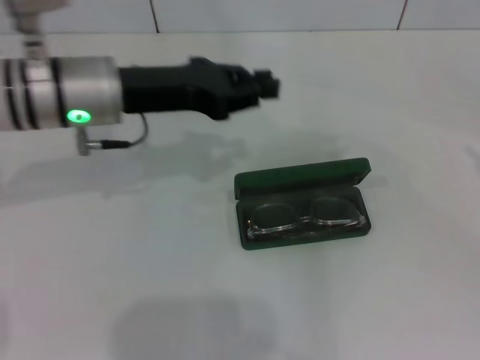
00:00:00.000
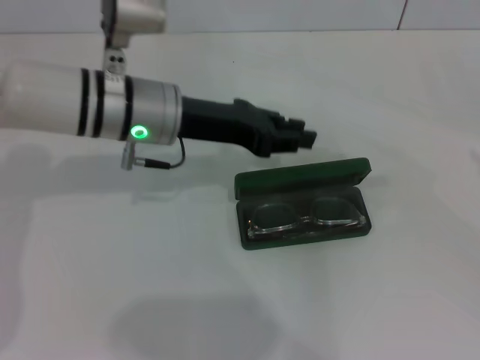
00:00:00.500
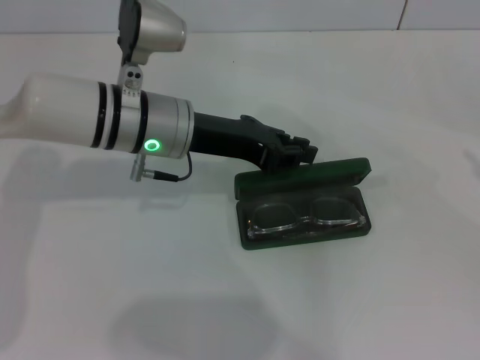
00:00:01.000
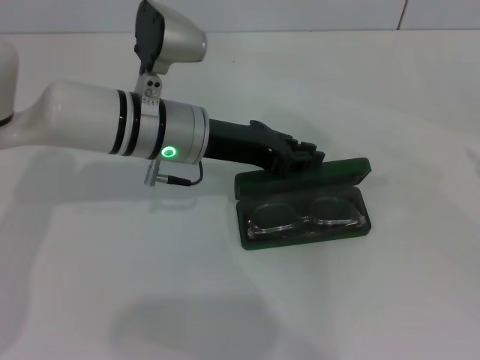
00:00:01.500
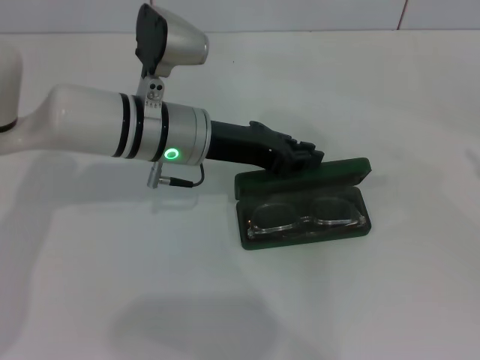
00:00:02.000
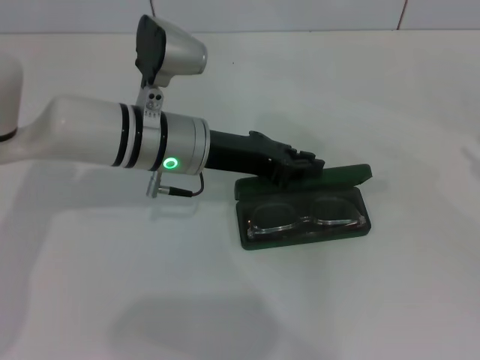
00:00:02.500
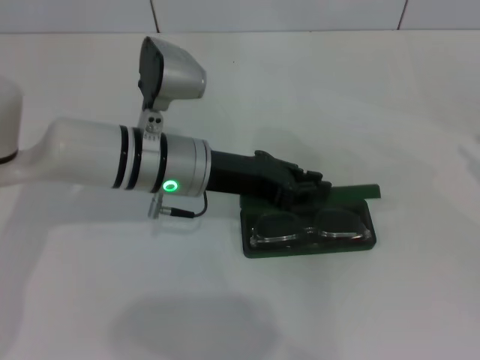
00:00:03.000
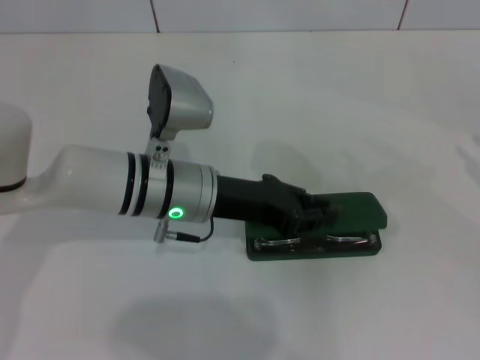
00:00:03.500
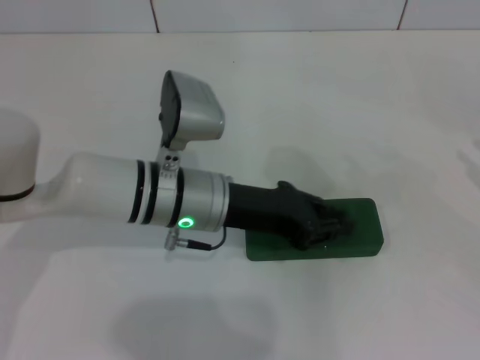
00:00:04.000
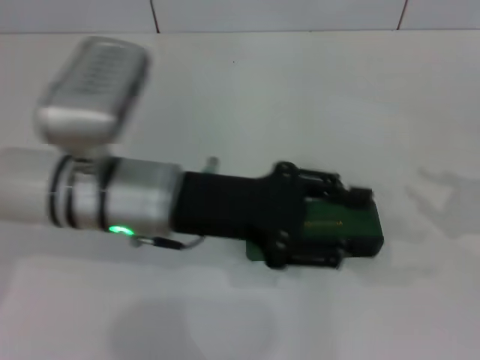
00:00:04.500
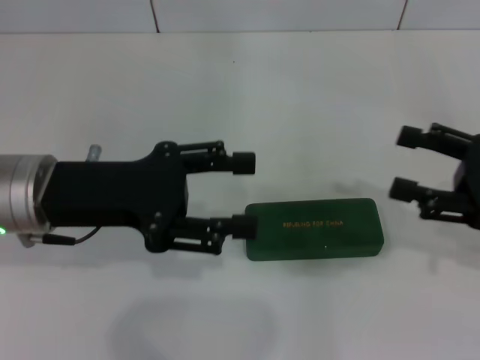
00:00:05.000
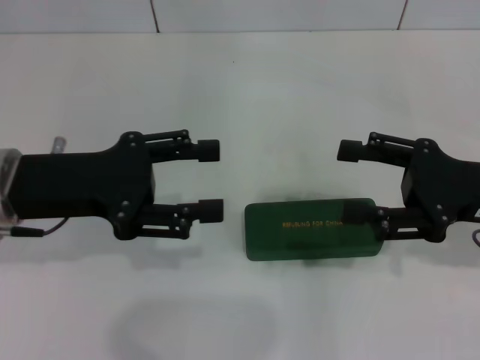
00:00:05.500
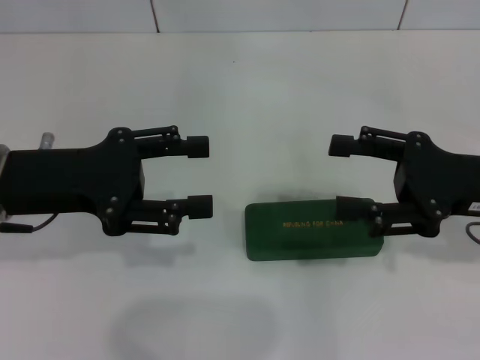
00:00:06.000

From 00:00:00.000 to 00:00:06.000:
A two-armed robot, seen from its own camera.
Step, from 00:00:00.000 to 00:00:03.500: Close the glasses case with your left hand.
From 00:00:00.000 to 00:00:02.000: The right gripper is displaced downward by some 5 cm. The left gripper goes roughly 5 cm to the right.
From 00:00:02.000 to 00:00:04.000: The left gripper heads backward, covering roughly 5 cm.
From 00:00:04.000 to 00:00:06.000: The right gripper travels to the left by roughly 15 cm, and opens up. Meanwhile the left gripper shifts about 15 cm to the left and upward, and opens.

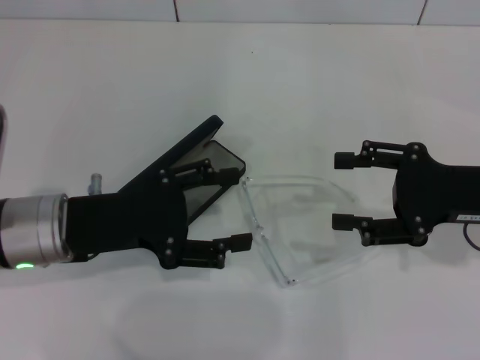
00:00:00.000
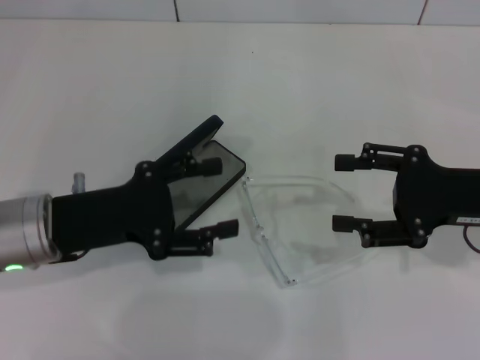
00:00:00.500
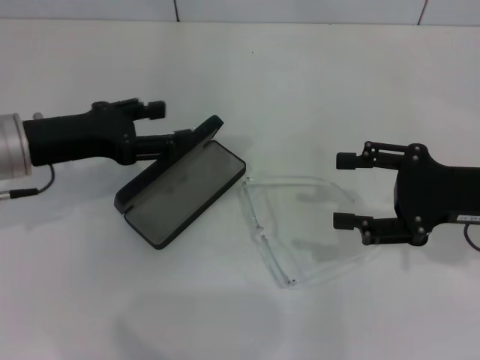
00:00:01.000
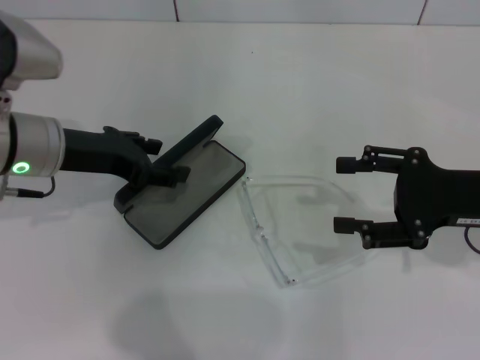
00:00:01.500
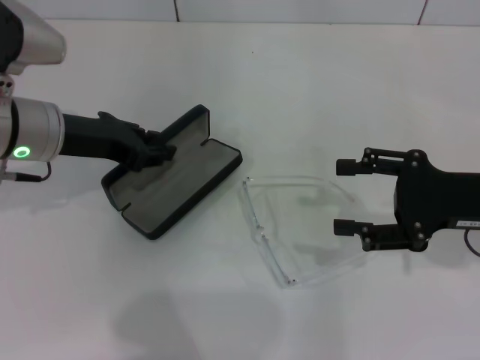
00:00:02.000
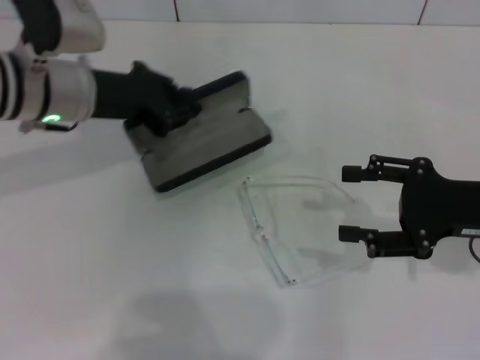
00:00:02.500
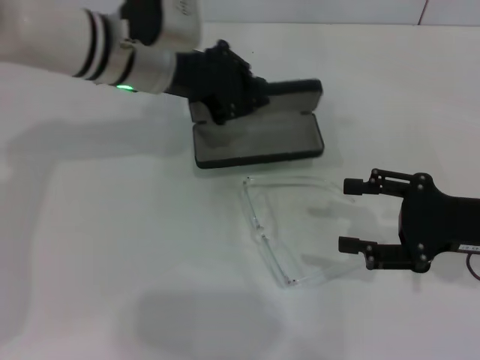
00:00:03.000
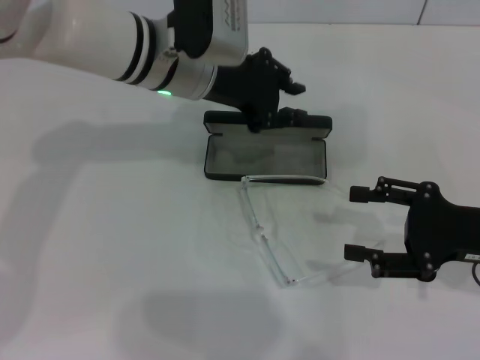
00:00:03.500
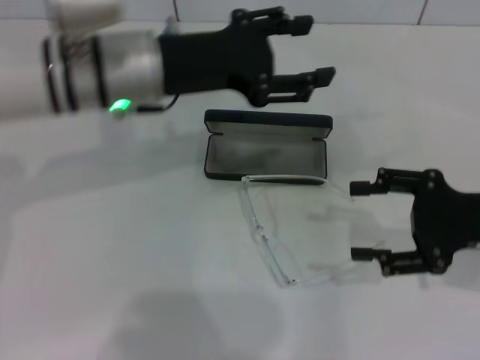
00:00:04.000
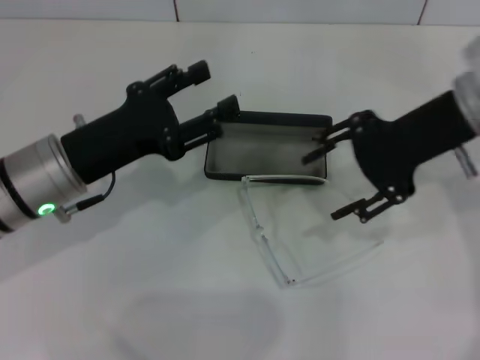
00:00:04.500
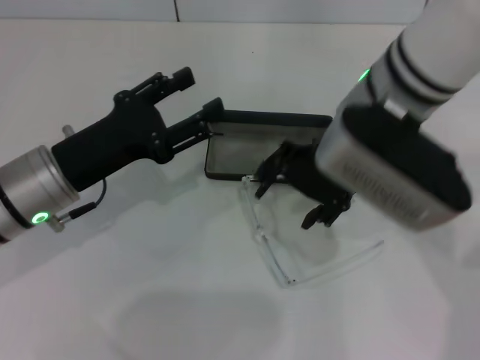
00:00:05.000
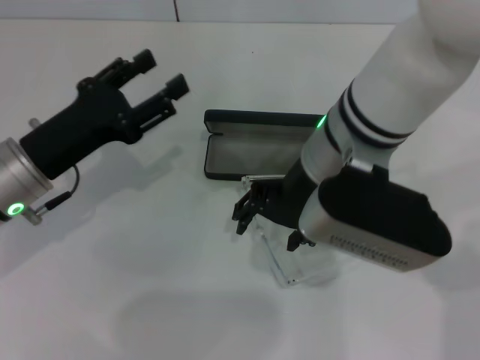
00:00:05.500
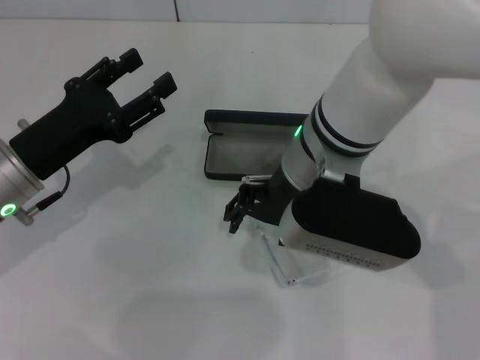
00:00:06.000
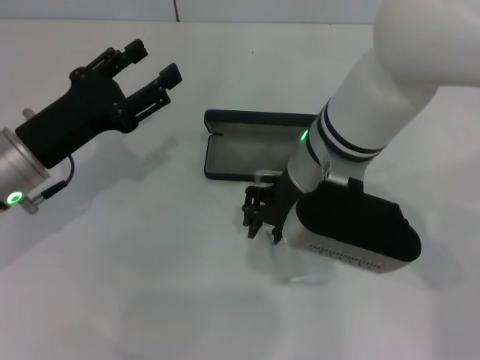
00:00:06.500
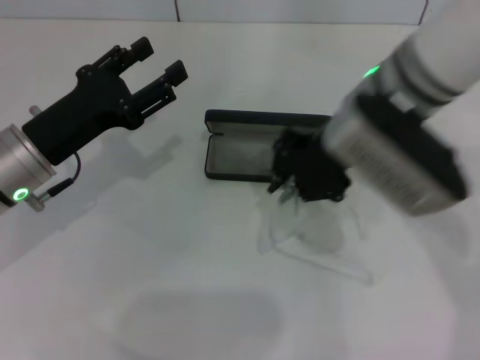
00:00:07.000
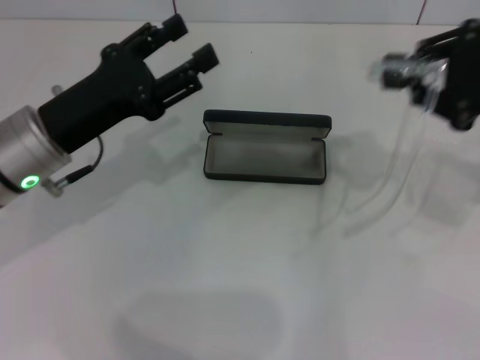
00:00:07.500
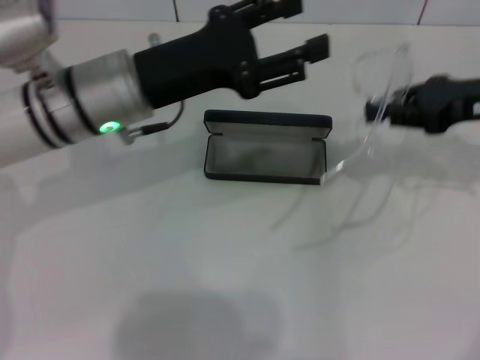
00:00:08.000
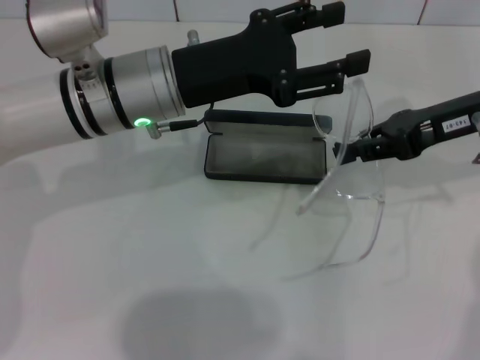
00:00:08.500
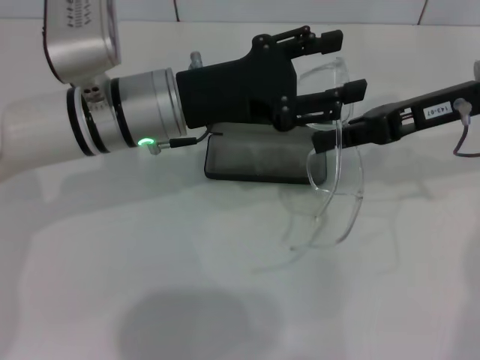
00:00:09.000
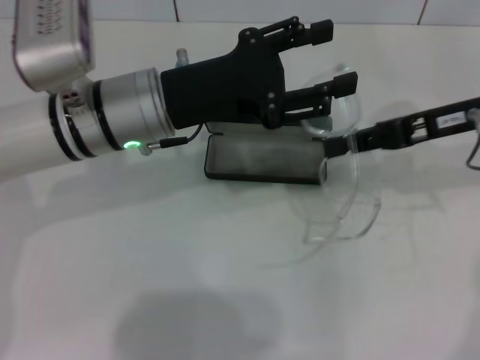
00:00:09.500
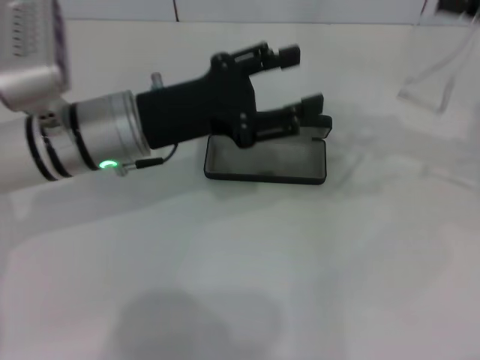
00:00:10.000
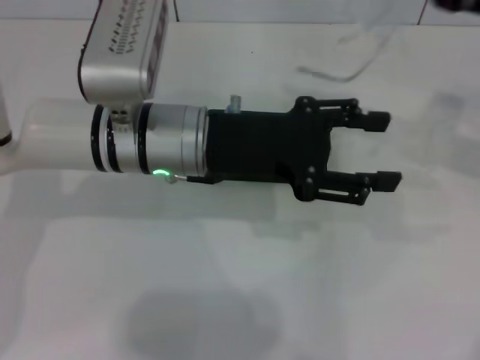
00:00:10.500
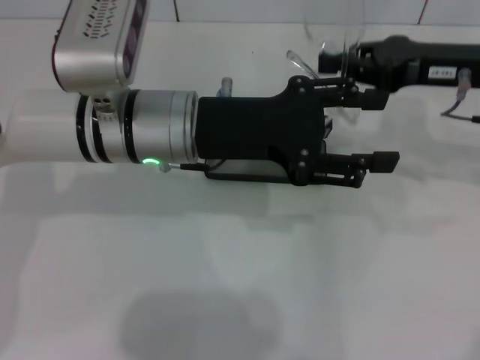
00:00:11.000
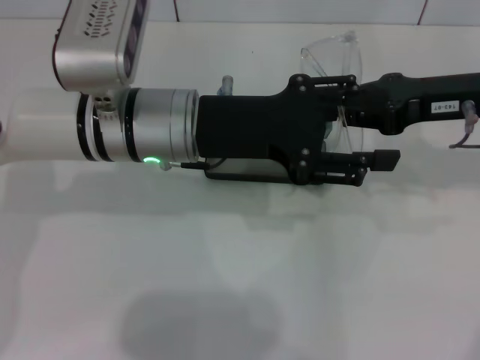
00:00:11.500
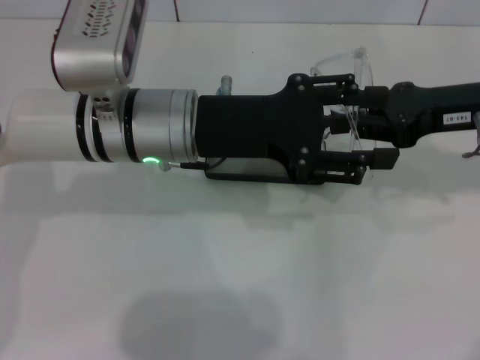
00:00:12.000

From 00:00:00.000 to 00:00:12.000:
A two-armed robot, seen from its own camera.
Step, from 00:00:00.000 to 00:00:02.000: Grab the glasses case with your left hand.
Step, from 00:00:02.500 to 00:00:03.000: Place the glasses case in the center of the table with your left hand.
Step, from 00:00:03.500 to 00:00:06.500: Grab the eyeglass frame with your right hand.
Step, from 00:00:07.000 to 00:00:11.500: Fold the frame with your left hand.
From 00:00:00.000 to 00:00:02.000: The left gripper moves forward, about 10 cm.
From 00:00:02.000 to 00:00:04.000: The left gripper heads to the right, covering about 10 cm, and closes and opens again.
From 00:00:04.000 to 00:00:06.000: The left gripper heads to the left, downward and backward, covering some 15 cm; the right gripper shifts approximately 25 cm to the left.
From 00:00:06.000 to 00:00:08.000: The right gripper travels to the right by some 25 cm, and closes its fingers. Meanwhile the left gripper is displaced to the right, upward and forward by roughly 15 cm.
From 00:00:08.000 to 00:00:10.000: The right gripper ends up about 5 cm from where it was.
From 00:00:10.000 to 00:00:12.000: The left gripper shifts by about 5 cm. The right gripper is displaced to the left by approximately 10 cm.

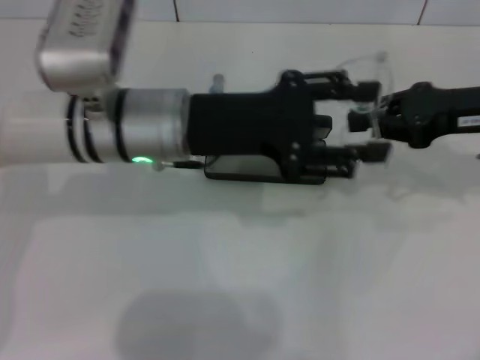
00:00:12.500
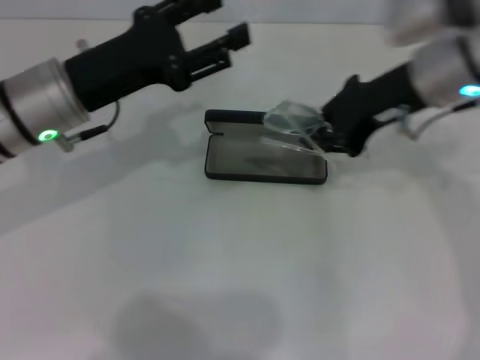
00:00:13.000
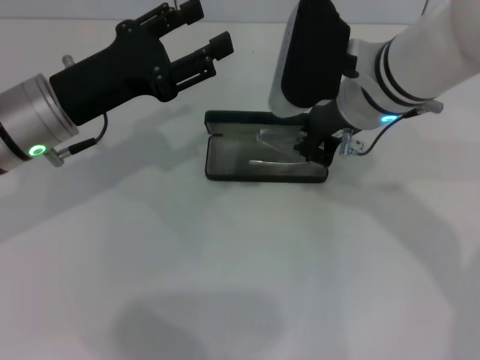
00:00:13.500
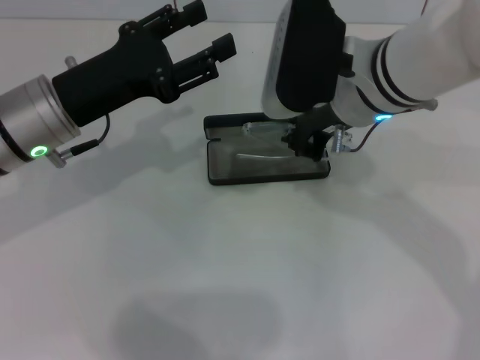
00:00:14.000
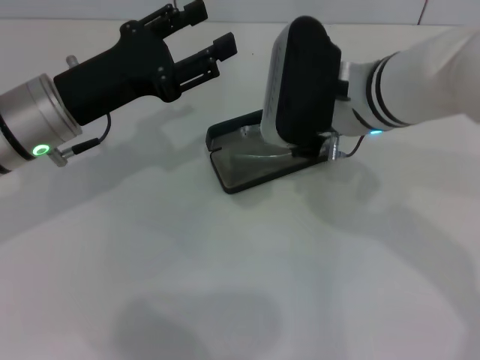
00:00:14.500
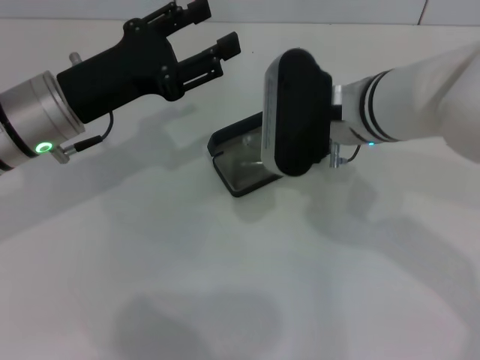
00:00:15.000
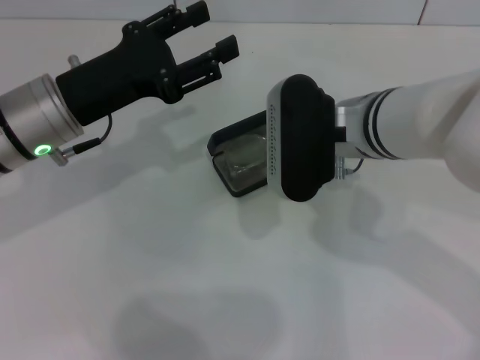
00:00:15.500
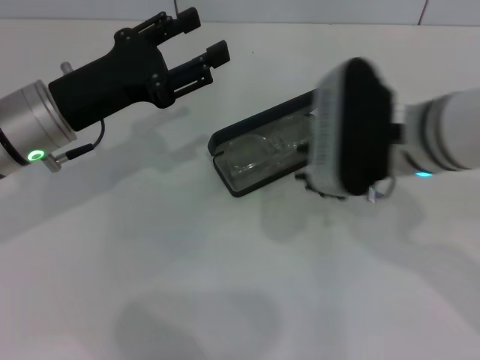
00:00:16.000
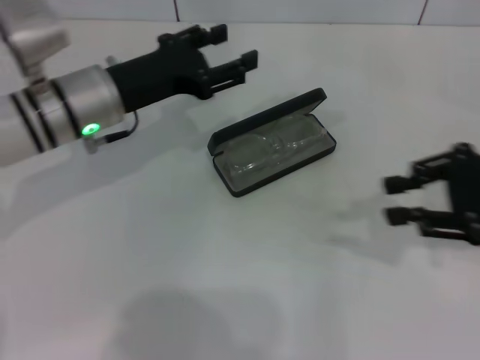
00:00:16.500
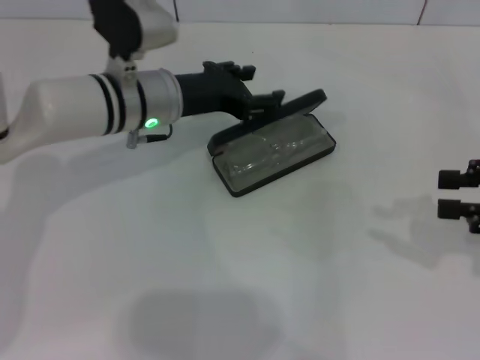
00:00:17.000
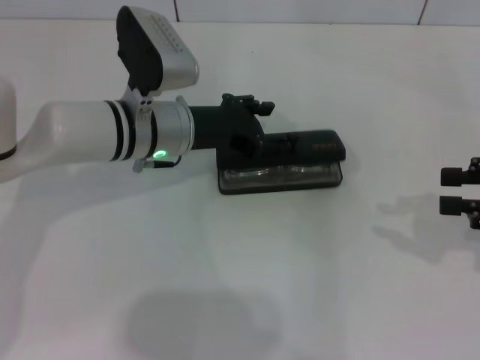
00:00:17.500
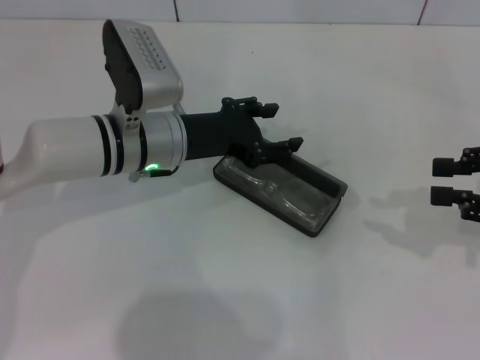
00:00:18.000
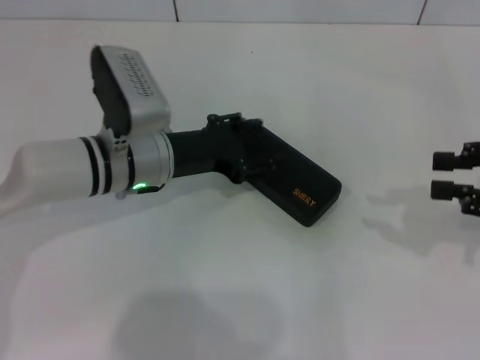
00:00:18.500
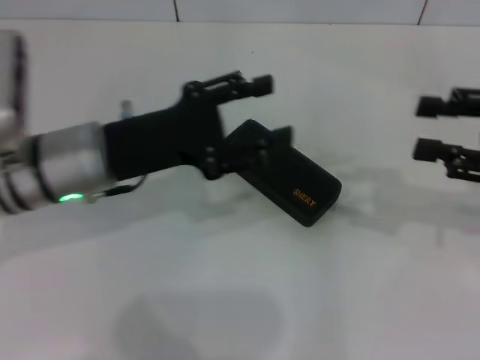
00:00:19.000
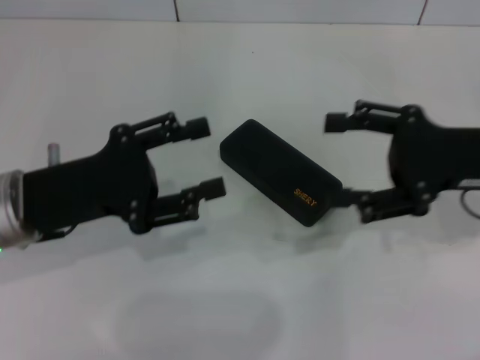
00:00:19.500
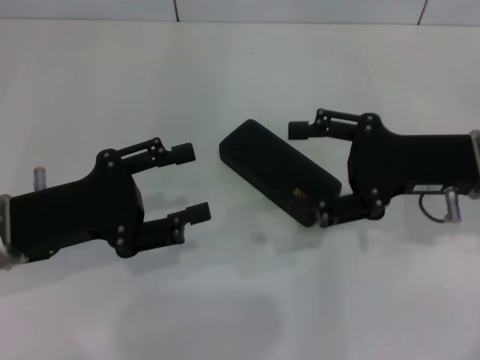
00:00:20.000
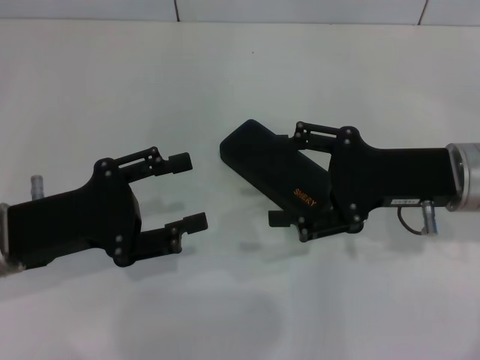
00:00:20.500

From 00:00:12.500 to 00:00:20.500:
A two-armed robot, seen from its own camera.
Step, from 00:00:12.500 to 00:00:15.000: Put the glasses into the case with your right hand.
Step, from 00:00:15.500 to 00:00:18.000: Close the glasses case with your left hand.
From 00:00:12.500 to 00:00:14.500: The left gripper heads to the left, covering about 10 cm; the right gripper is displaced to the left by about 20 cm.
From 00:00:14.500 to 00:00:16.500: The left gripper moves about 5 cm. Meanwhile the right gripper heads to the right, covering approximately 20 cm.
From 00:00:16.500 to 00:00:18.500: The right gripper changes place by some 5 cm. The left gripper shifts by roughly 5 cm.
From 00:00:18.500 to 00:00:20.500: The left gripper shifts approximately 15 cm backward and to the left. Meanwhile the right gripper is displaced to the left by about 15 cm, and opens up.
